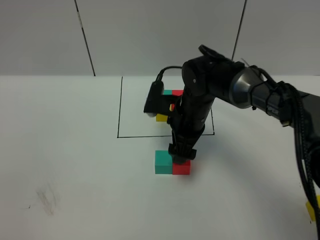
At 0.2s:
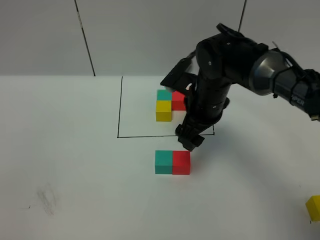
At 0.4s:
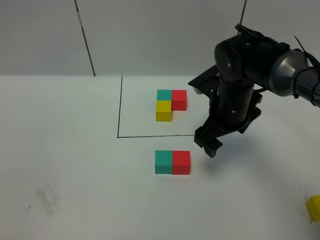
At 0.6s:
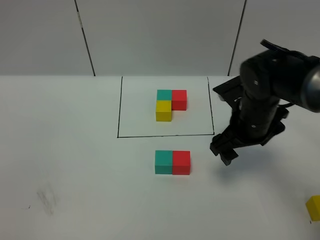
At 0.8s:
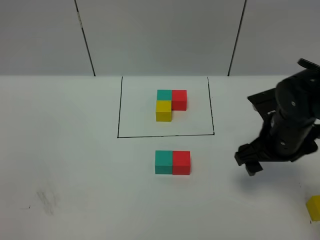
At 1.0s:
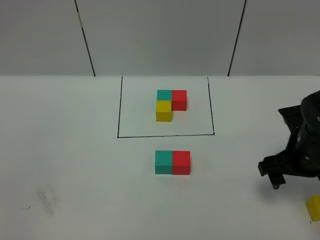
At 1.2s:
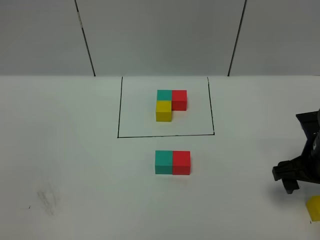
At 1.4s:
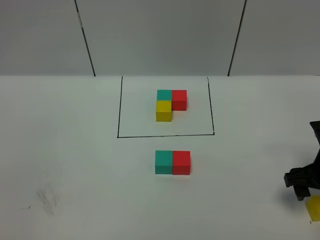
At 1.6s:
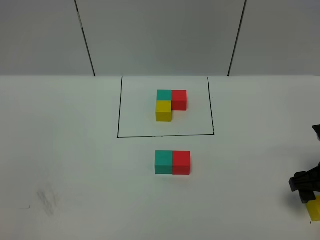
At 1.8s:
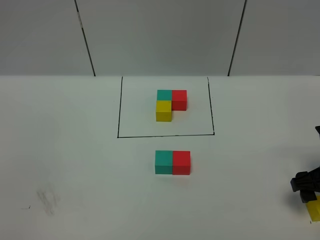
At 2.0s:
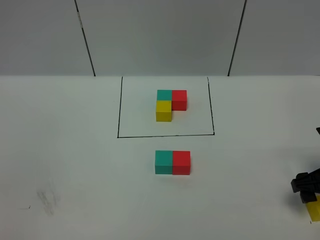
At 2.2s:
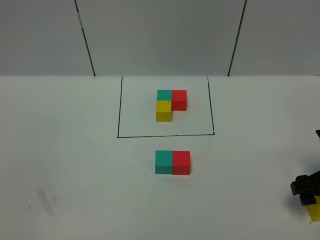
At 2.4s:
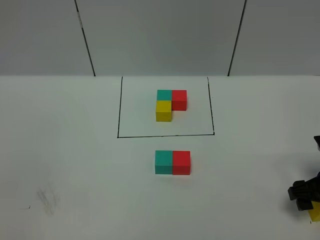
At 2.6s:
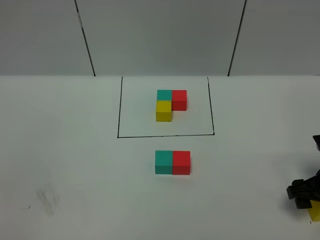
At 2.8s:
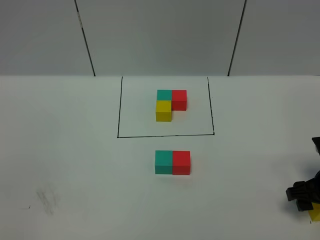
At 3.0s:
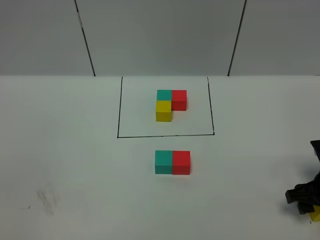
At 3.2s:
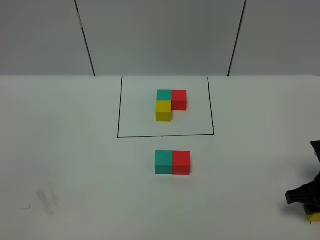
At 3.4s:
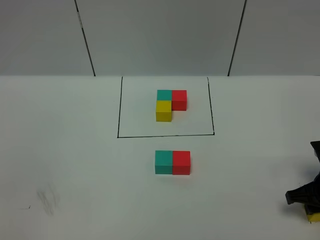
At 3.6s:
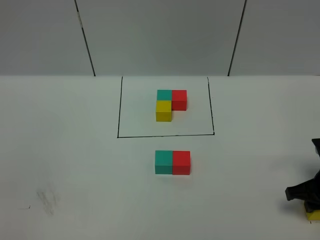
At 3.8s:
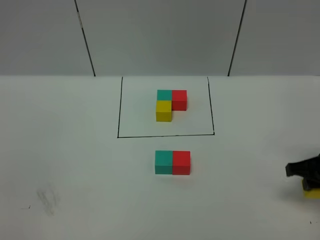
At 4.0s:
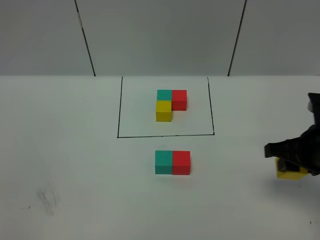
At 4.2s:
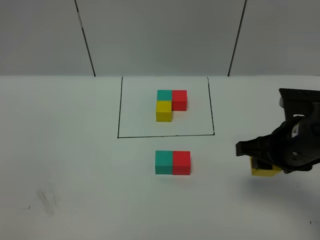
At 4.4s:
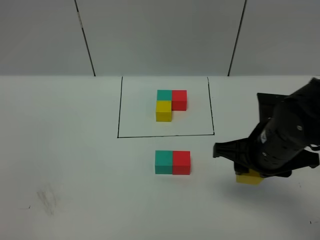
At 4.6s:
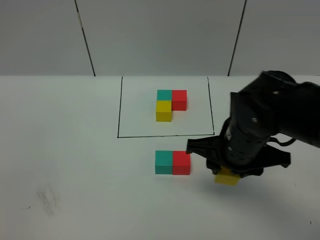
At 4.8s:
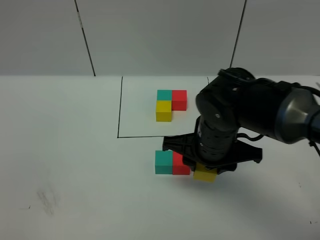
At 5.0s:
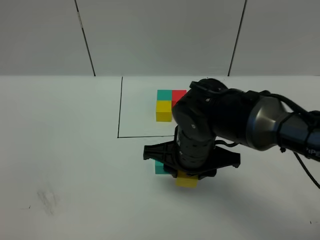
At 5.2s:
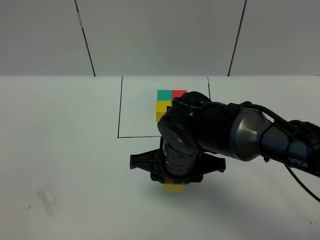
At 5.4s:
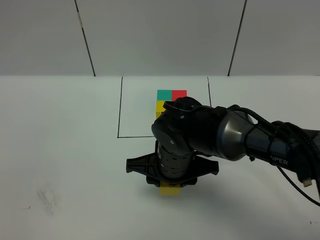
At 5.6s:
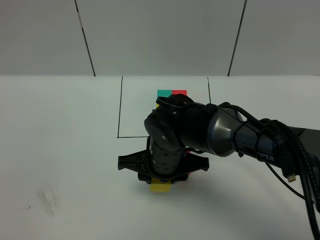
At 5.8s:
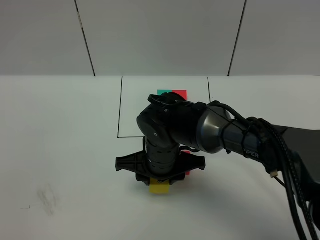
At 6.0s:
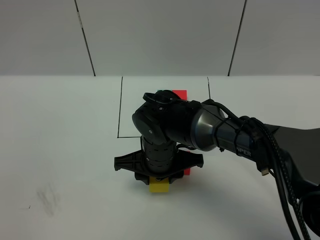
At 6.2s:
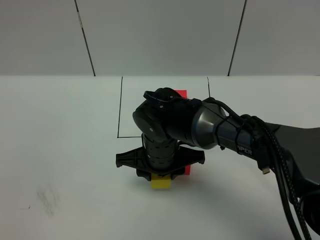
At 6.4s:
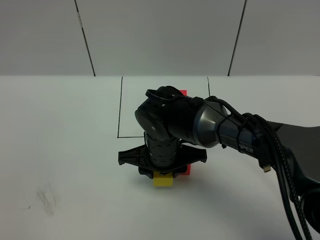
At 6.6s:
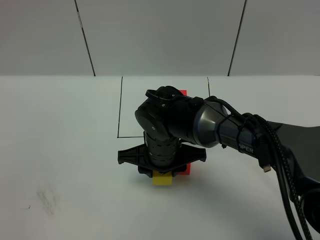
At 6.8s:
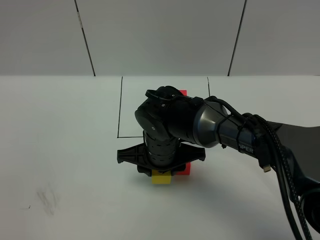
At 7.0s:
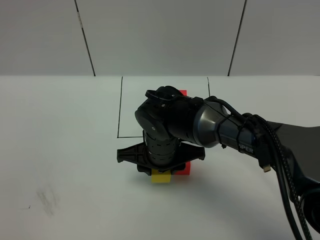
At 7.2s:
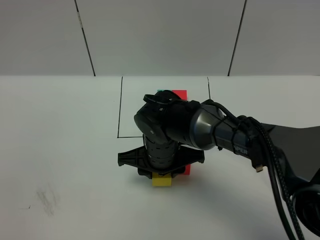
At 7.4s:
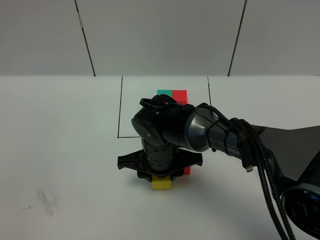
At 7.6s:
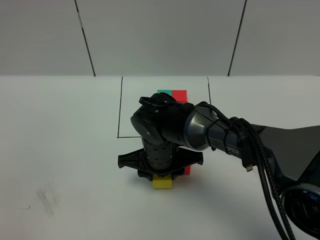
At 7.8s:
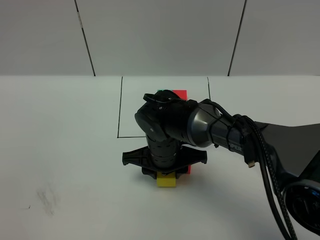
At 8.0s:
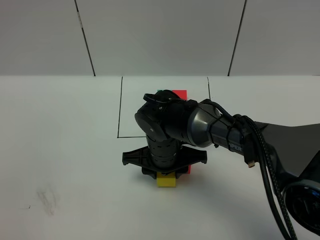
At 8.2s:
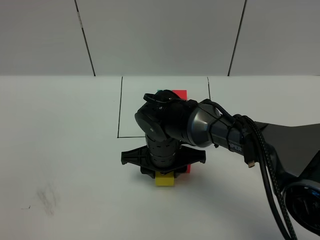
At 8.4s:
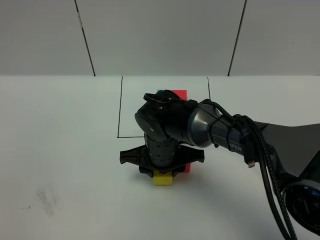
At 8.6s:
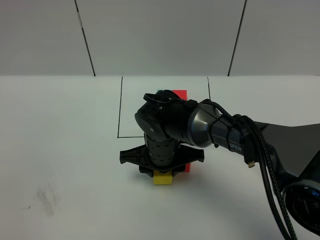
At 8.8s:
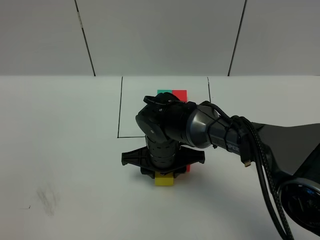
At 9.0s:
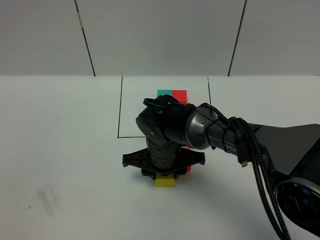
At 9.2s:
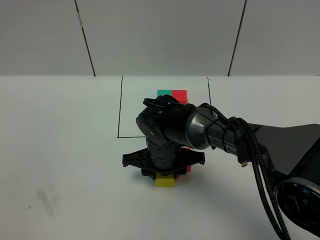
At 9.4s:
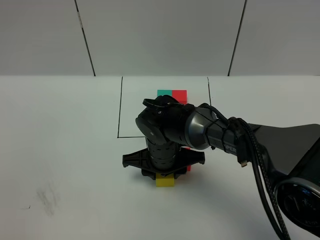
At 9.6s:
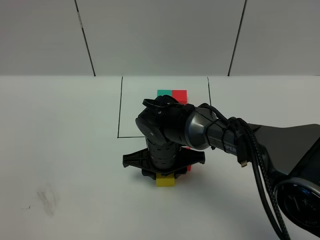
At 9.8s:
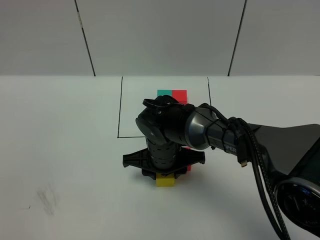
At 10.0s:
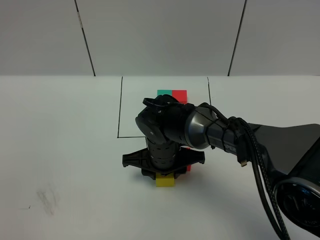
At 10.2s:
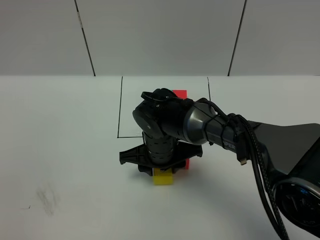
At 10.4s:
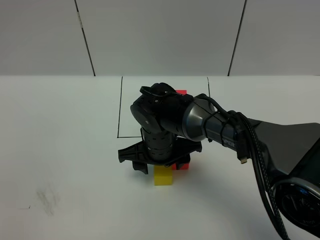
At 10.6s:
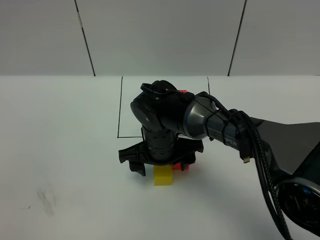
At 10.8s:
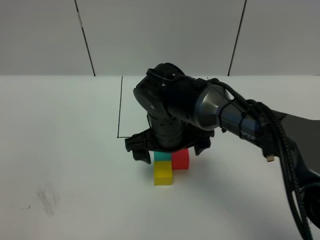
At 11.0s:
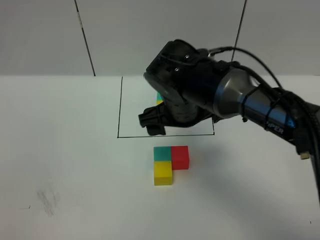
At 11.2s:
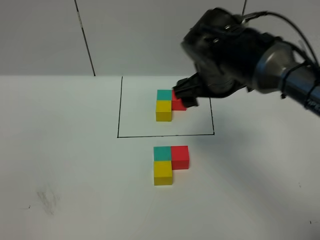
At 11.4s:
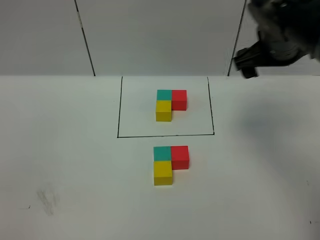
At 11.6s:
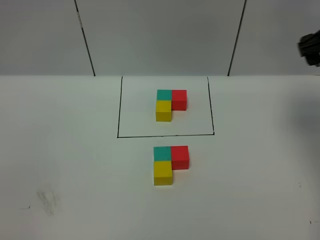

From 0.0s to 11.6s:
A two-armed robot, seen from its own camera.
Task of the whole recording: According to the building block template in front, assemble the scattered blocks together.
Step, from 0.2s to 10.6s: Put the yellow cube in the front of the green cube.
From 0.0s to 1.4s: The right gripper is displaced to the right and backward by approximately 25 cm.
From 1.4s to 2.8s: There are only small adjustments of the grippers.
From 2.8s to 4.4s: The right gripper travels to the left and upward by about 20 cm, and closes its fingers.
From 4.4s to 5.8s: The right gripper moves to the left and downward, some 15 cm.
From 5.8s to 10.2s: The grippers move only a little.
From 10.2s to 11.6s: The right gripper is displaced to the right and upward by roughly 40 cm, and opens up.
